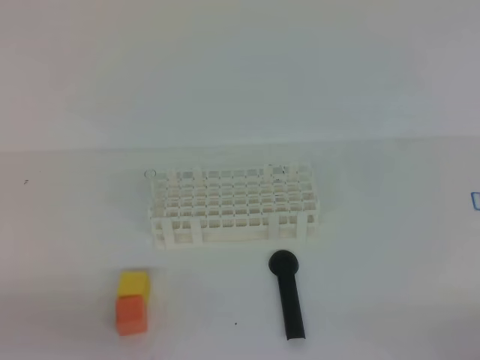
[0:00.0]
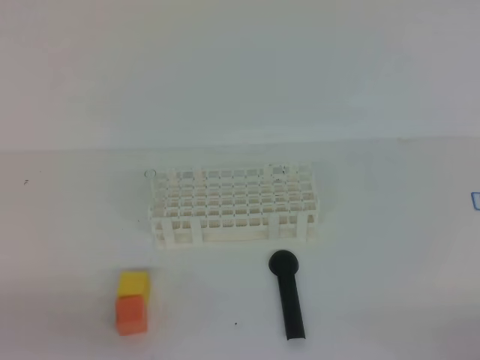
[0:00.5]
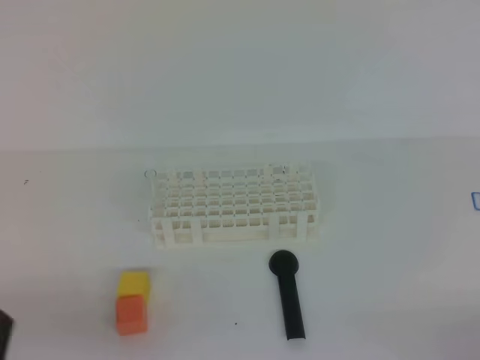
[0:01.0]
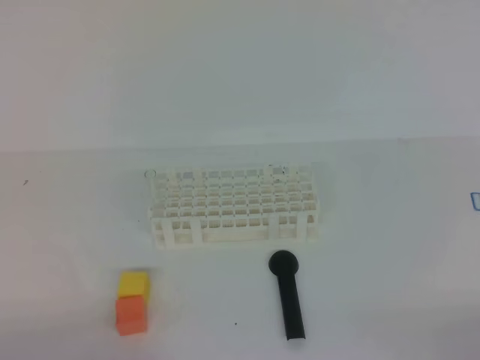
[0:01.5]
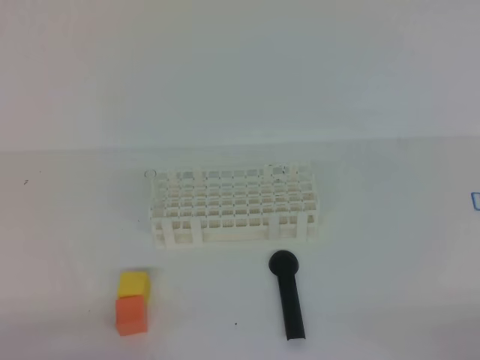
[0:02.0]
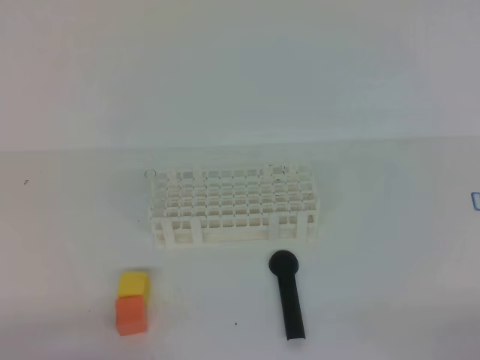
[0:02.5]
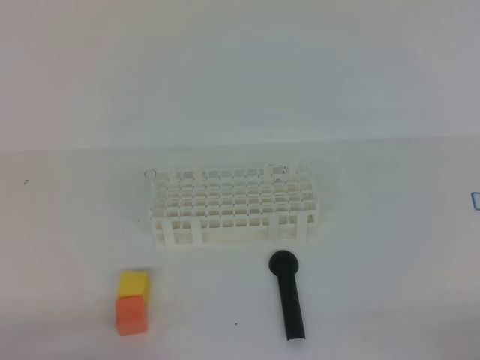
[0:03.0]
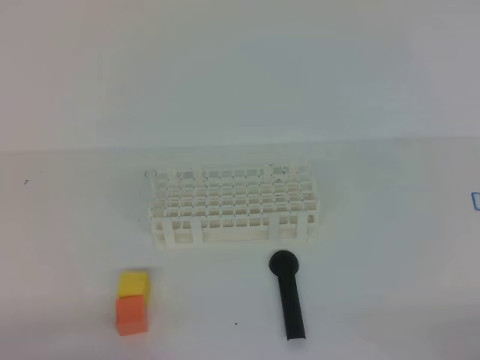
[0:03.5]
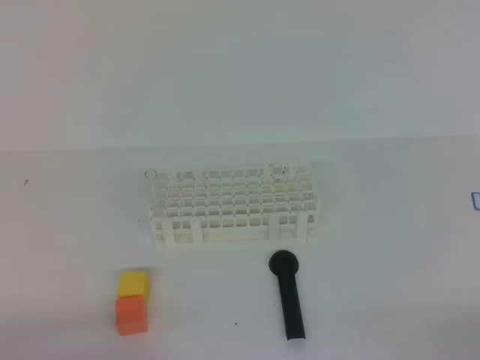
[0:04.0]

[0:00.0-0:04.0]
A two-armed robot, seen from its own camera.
0:02.0 to 0:04.0: Neither gripper changes place.

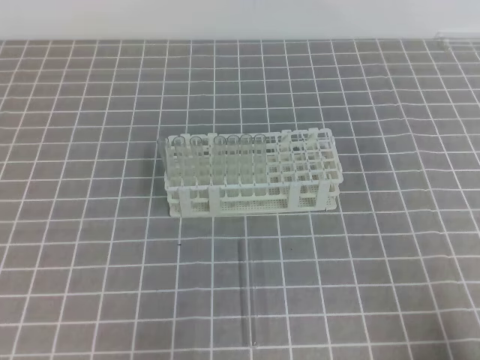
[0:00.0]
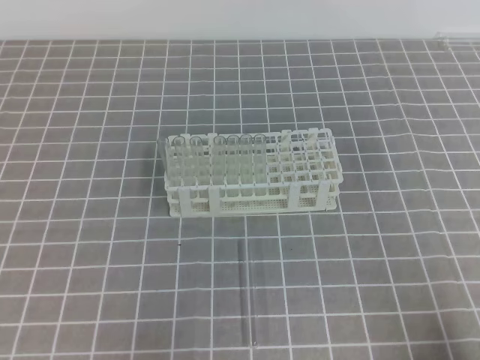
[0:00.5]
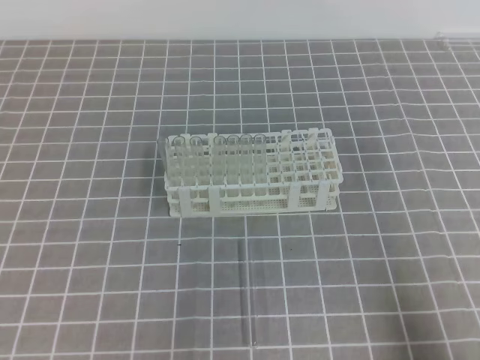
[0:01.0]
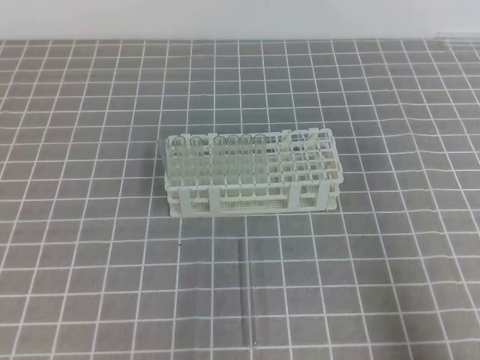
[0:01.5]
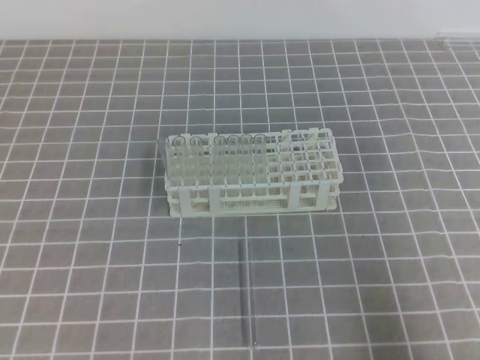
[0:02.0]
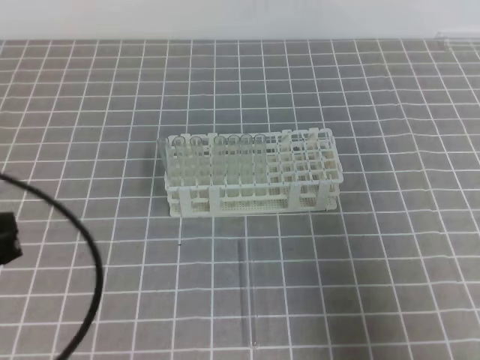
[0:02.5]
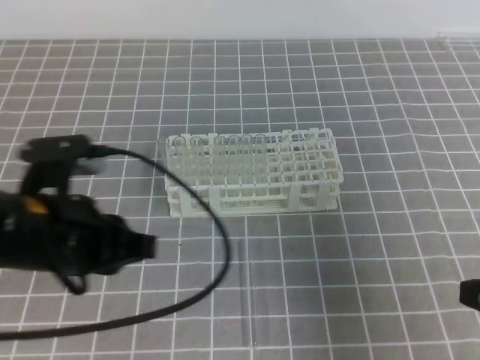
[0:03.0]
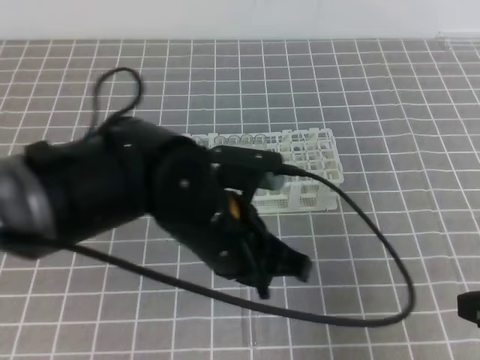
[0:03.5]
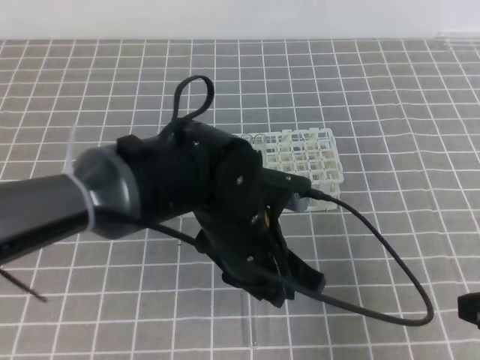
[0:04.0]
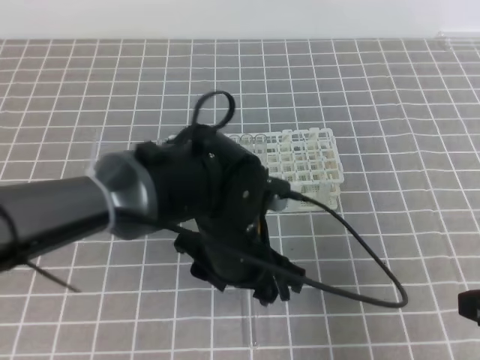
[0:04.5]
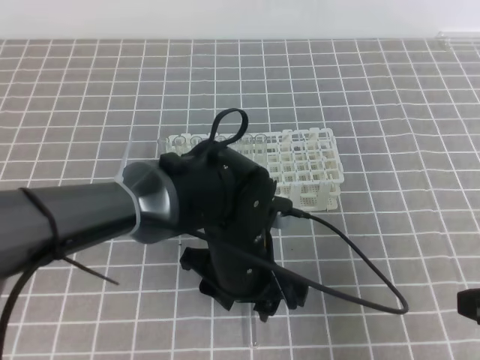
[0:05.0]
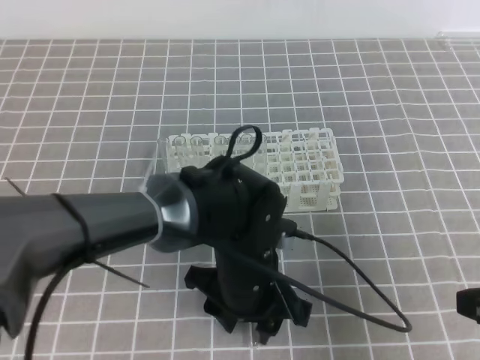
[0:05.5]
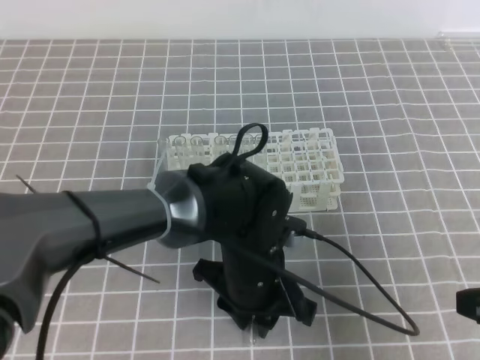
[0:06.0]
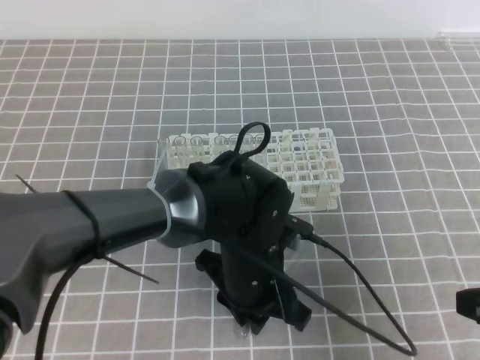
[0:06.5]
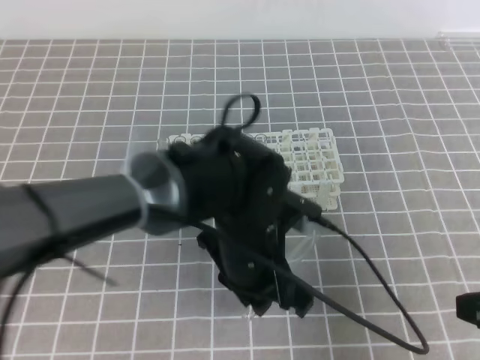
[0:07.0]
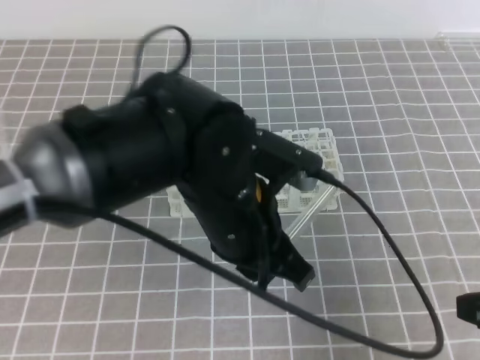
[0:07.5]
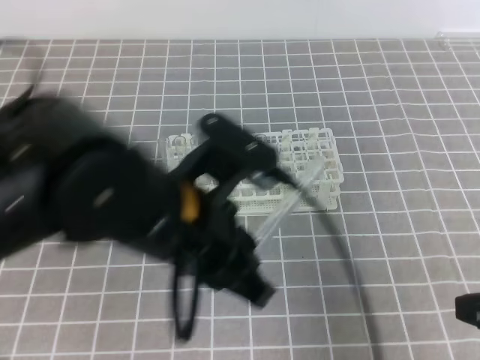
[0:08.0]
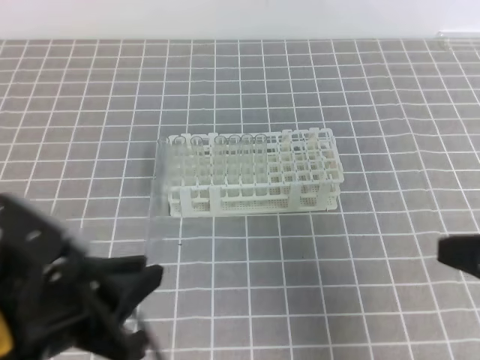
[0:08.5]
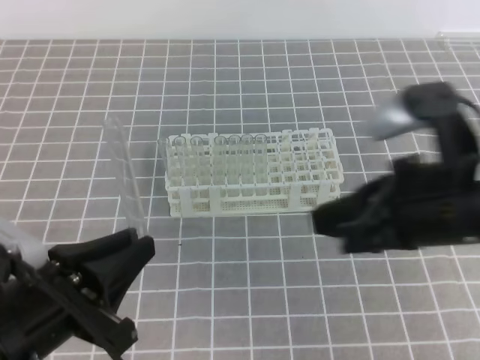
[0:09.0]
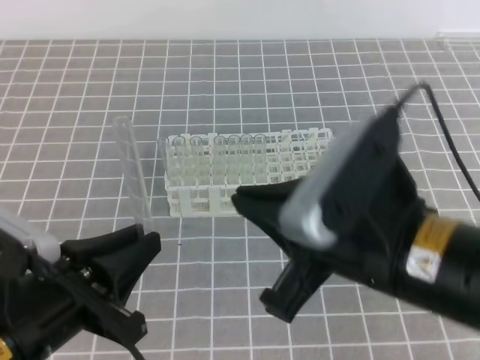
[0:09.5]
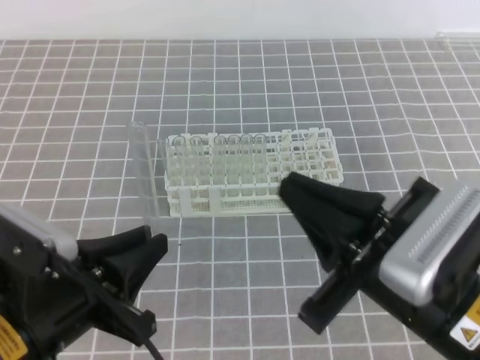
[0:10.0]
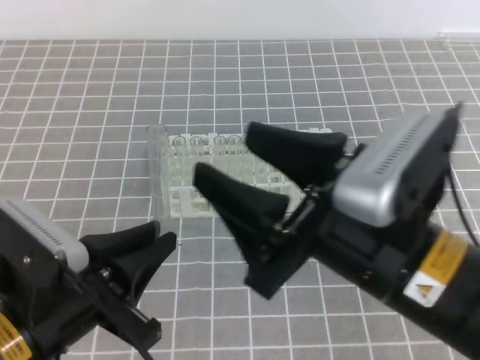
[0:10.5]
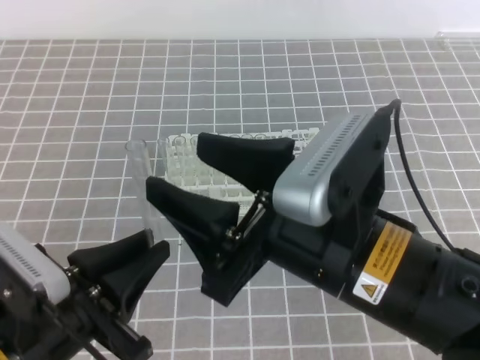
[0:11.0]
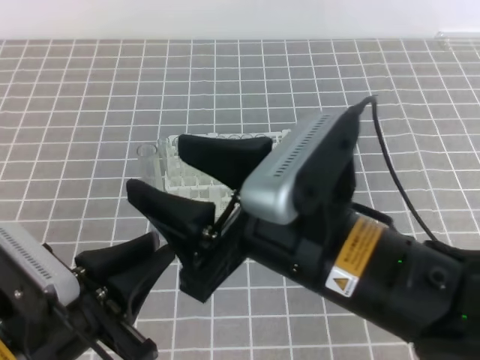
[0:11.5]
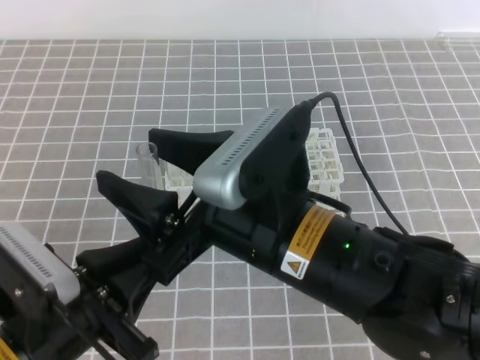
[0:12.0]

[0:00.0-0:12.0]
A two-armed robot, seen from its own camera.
0:00.0 to 0:02.0: The right gripper travels upward by some 5 cm.
0:02.0 to 0:04.0: The left gripper travels to the right and forward by approximately 30 cm, and opens, while the right gripper heads forward, covering approximately 10 cm.
0:04.0 to 0:06.0: The left gripper is displaced downward by some 5 cm, and opens and closes again.
0:06.0 to 0:08.0: The left gripper is displaced upward and to the left by roughly 15 cm, and closes its fingers.
0:08.0 to 0:10.0: The right gripper goes approximately 15 cm to the left, while the left gripper shifts roughly 15 cm to the left, downward and backward.
0:10.0 to 0:12.0: The right gripper shifts about 10 cm to the left, and opens up.

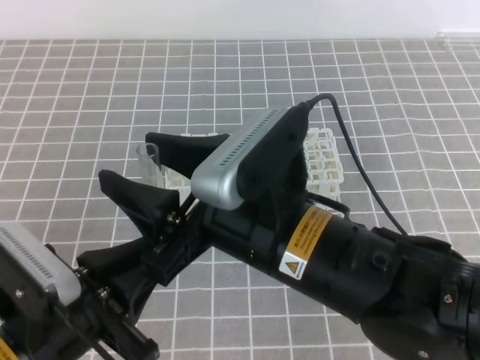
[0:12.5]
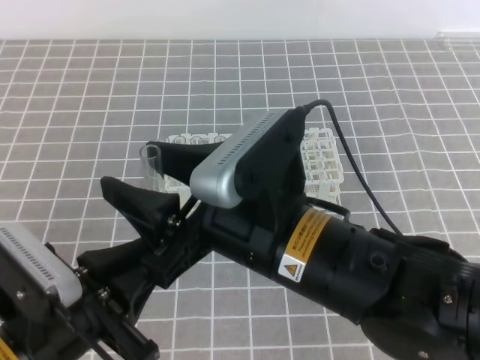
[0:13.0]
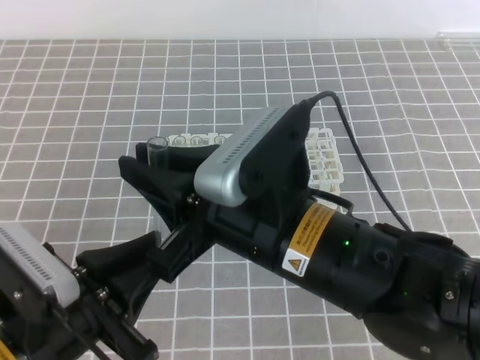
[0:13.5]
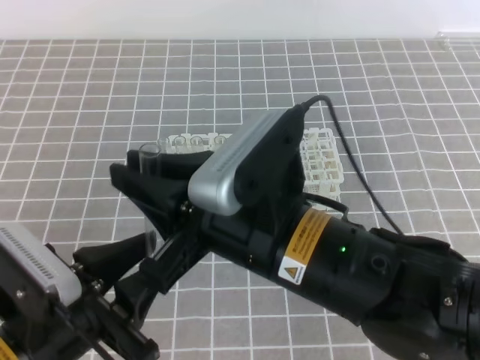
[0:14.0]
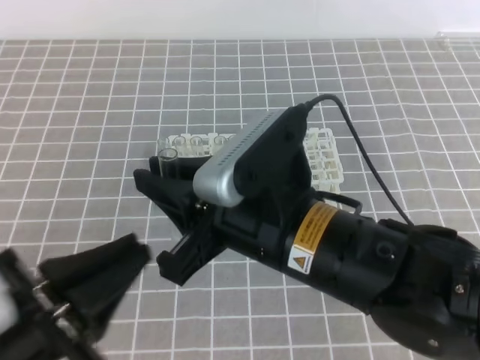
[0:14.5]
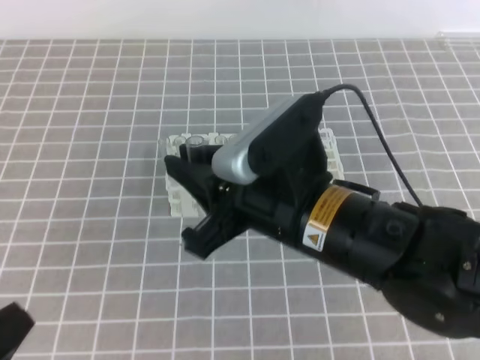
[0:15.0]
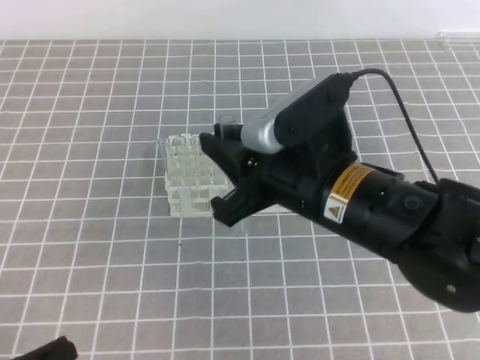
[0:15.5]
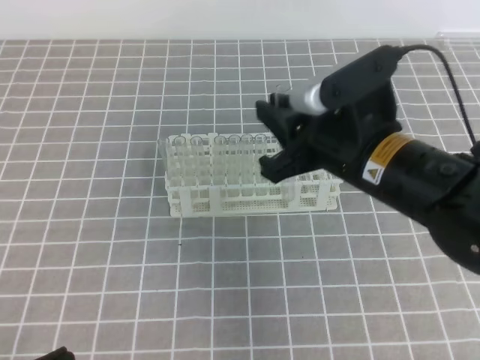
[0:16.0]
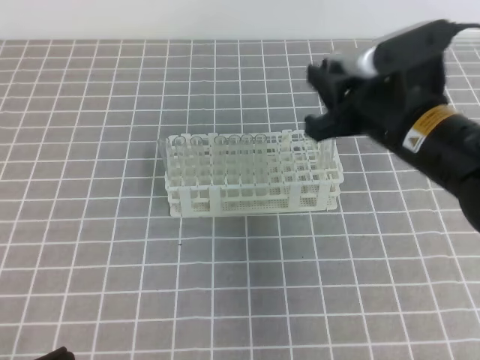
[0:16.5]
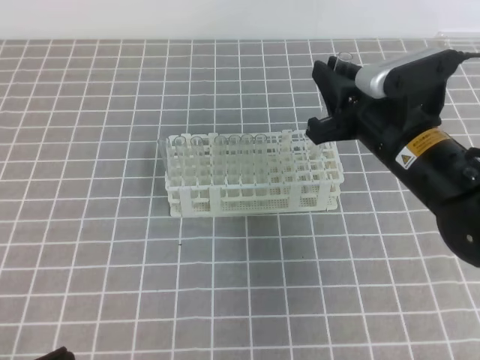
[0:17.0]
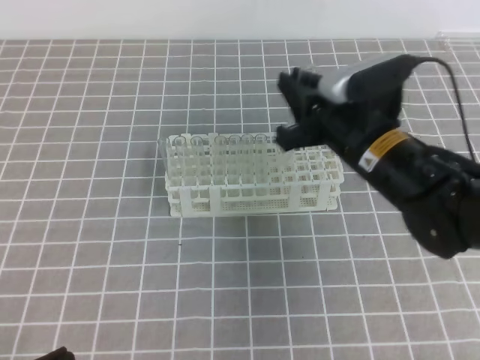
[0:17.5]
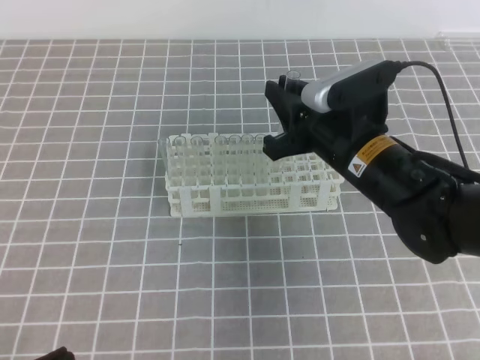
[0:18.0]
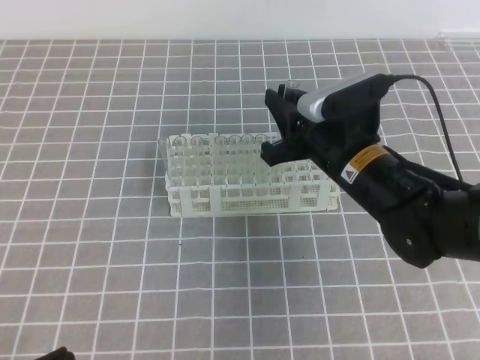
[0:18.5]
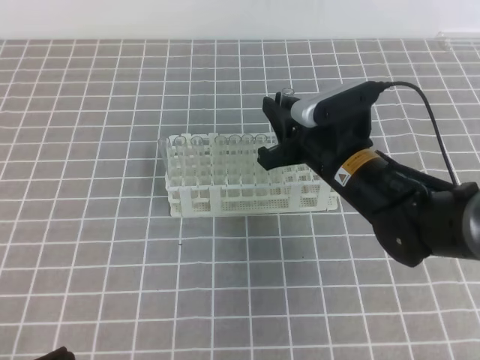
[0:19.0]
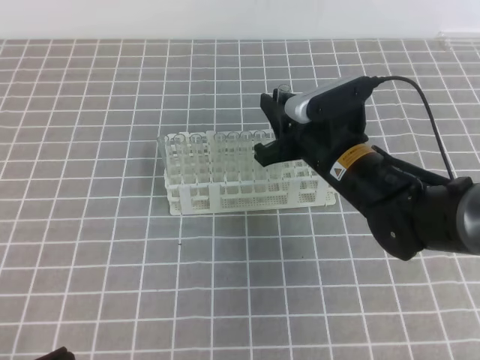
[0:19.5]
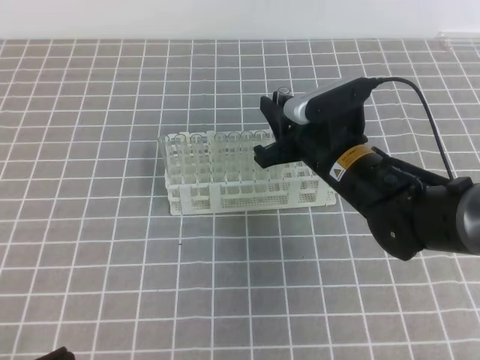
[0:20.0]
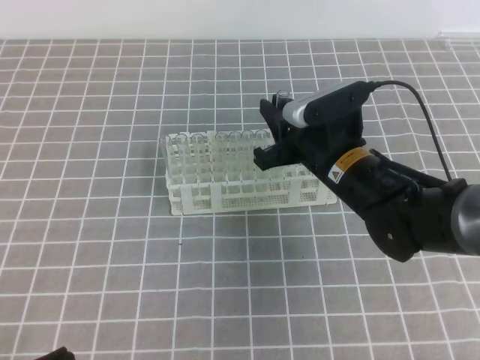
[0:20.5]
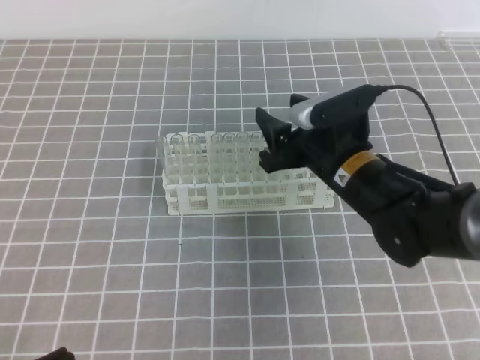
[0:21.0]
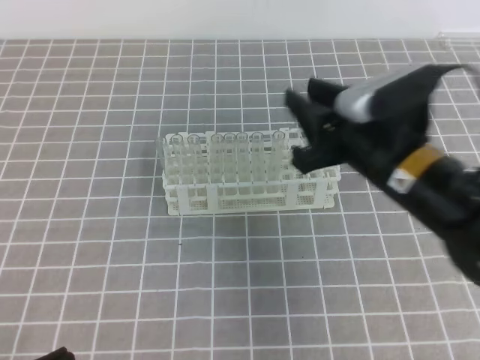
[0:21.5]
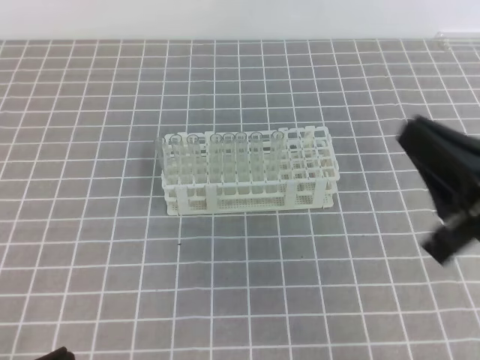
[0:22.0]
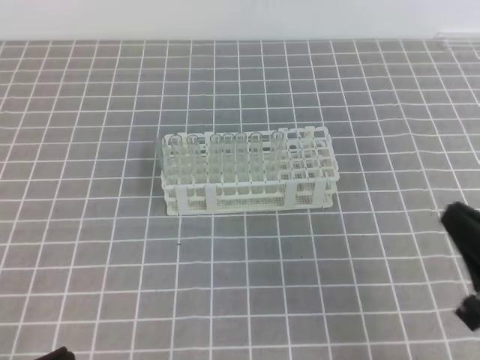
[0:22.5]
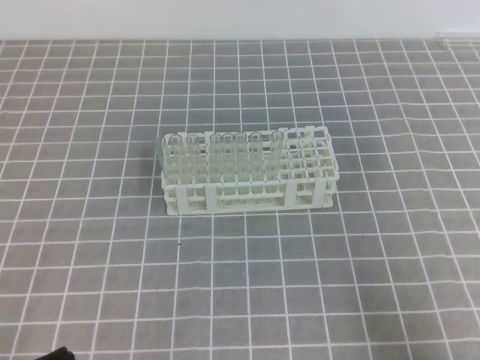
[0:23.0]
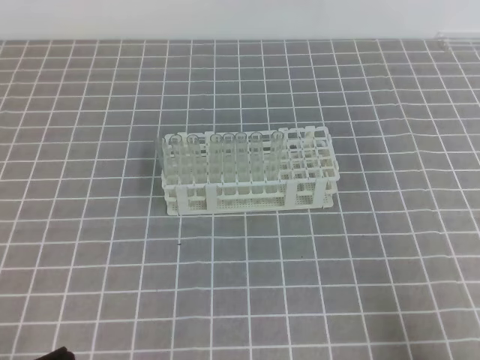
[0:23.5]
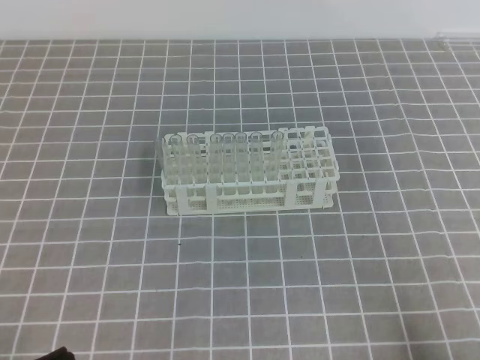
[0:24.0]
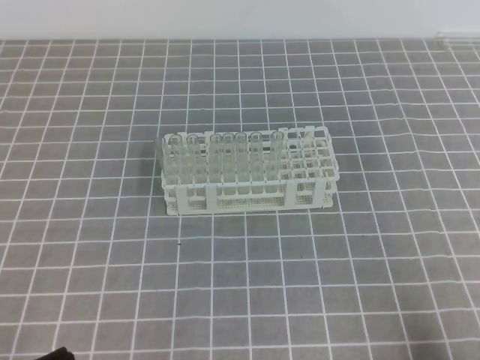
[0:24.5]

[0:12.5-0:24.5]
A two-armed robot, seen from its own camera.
0:12.5 to 0:14.5: The right gripper closes its fingers.
0:14.5 to 0:16.5: The right gripper heads forward and to the right, covering roughly 15 cm; the left gripper moves downward, to the left and backward, approximately 10 cm.
0:16.5 to 0:18.5: The right gripper goes about 5 cm downward.
0:18.5 to 0:20.5: There are only small adjustments of the grippers.
0:20.5 to 0:22.5: The right gripper travels backward and to the right by about 25 cm, and opens and closes again.
0:22.5 to 0:24.5: The right gripper moves backward, downward and to the right, roughly 10 cm.
